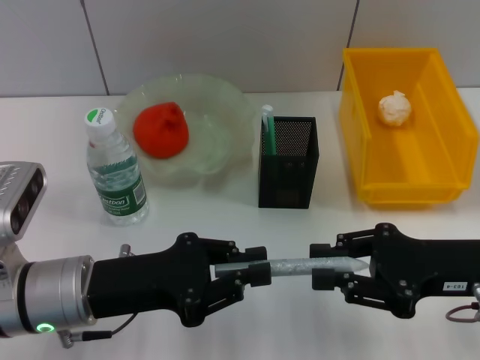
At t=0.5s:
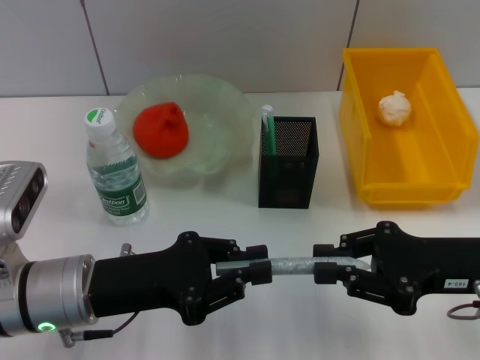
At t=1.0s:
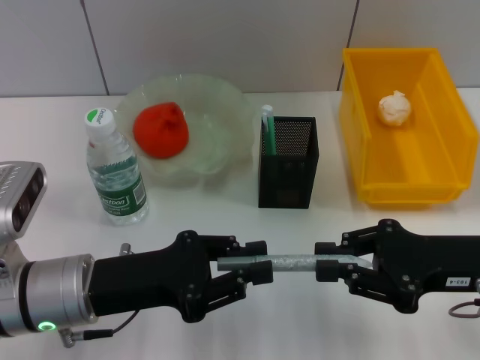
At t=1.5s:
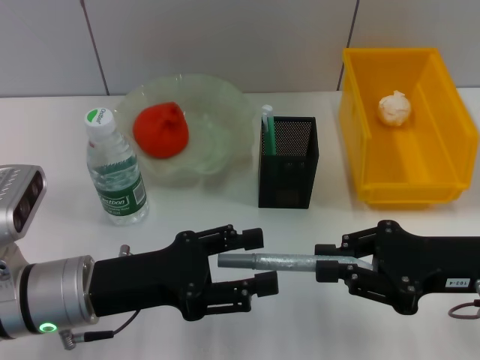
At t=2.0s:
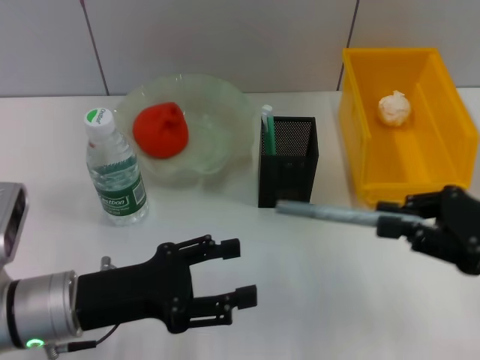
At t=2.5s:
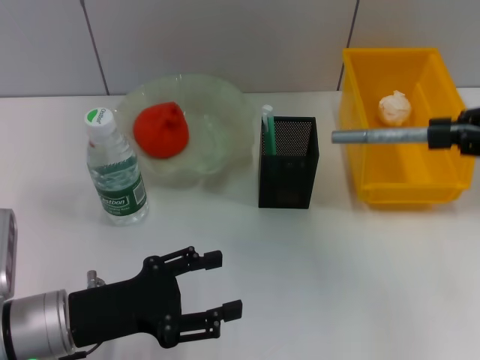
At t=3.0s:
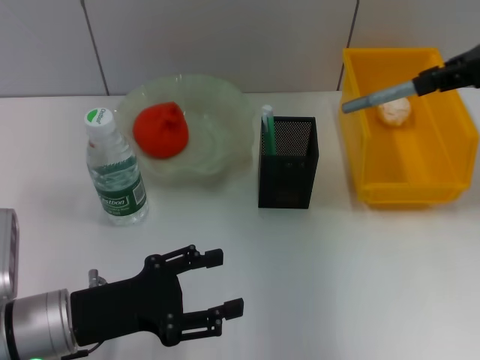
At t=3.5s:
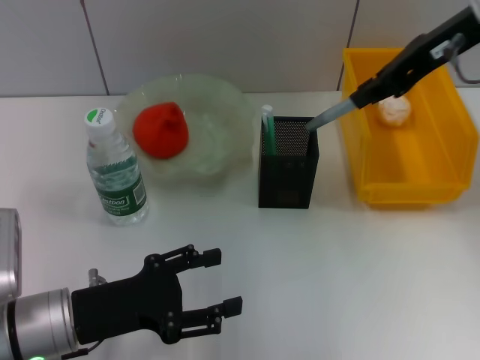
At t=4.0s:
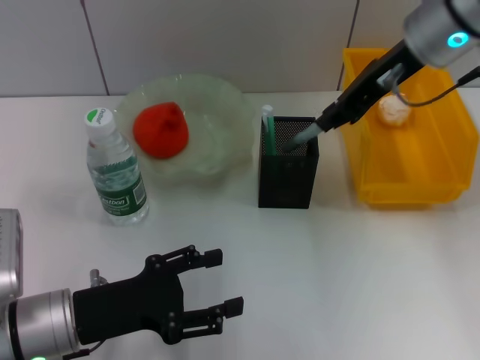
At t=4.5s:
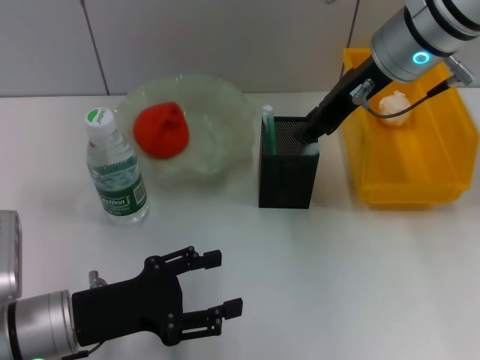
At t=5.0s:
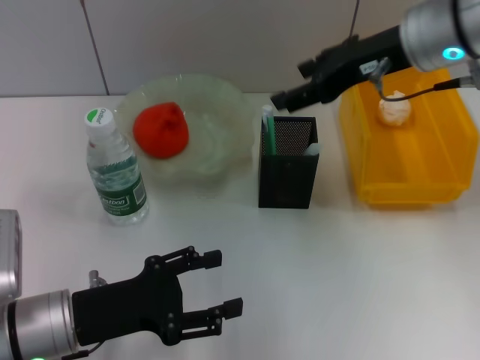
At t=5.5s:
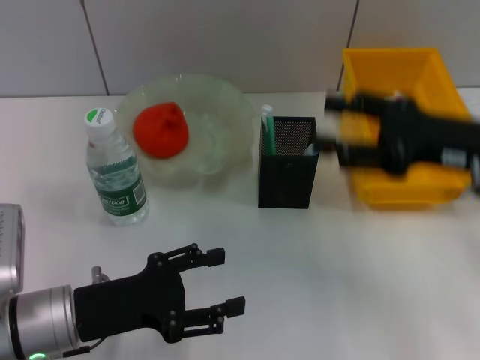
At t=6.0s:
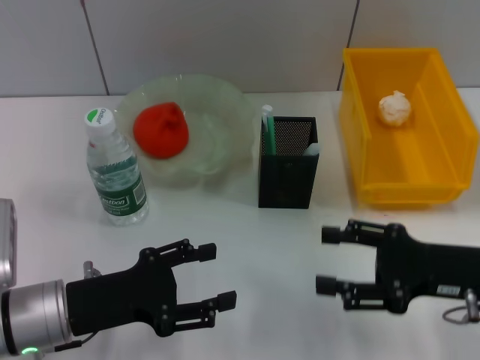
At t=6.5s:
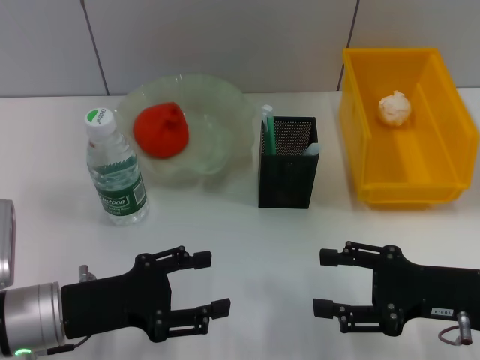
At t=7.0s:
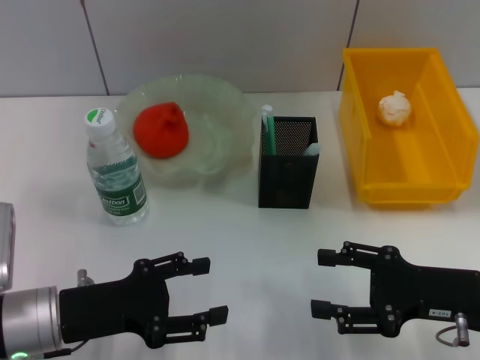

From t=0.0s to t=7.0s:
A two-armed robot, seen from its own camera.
Step, from t=2.0s to t=4.5s: Place the gray glue into the pen holder with the right hand.
From t=0.0s to t=2.0s: The left gripper opens its fingers. Meanwhile the right gripper heads to the right, covering approximately 5 cm.
From t=2.0s to t=3.5s: The right gripper heads upward, forward and to the left, covering approximately 25 cm.
From t=3.5s to t=5.0s: The right gripper opens up.
From t=5.0s to t=7.0s: The right gripper moves downward, backward and to the right, some 25 cm.

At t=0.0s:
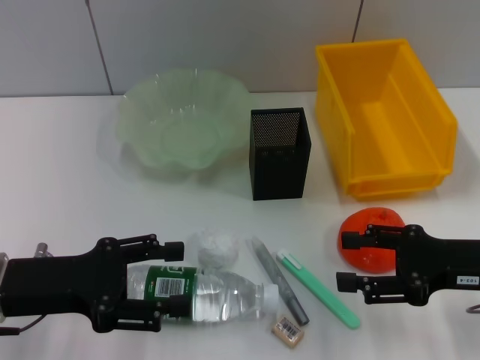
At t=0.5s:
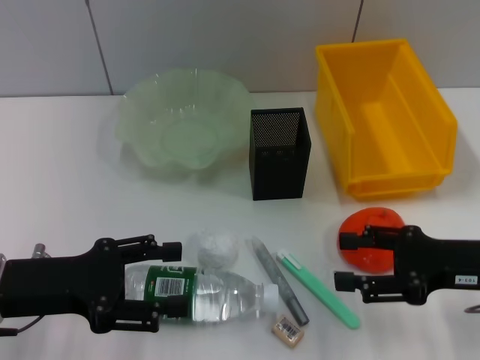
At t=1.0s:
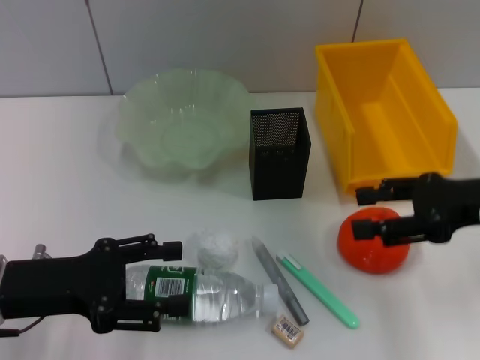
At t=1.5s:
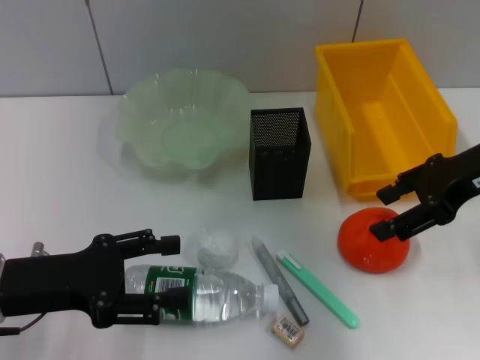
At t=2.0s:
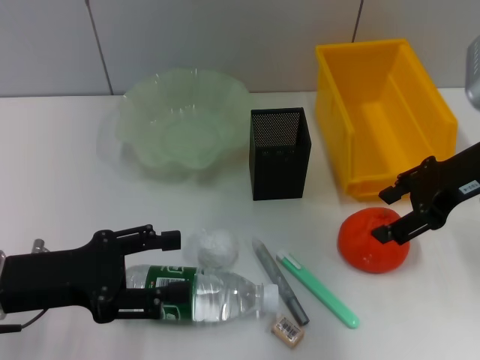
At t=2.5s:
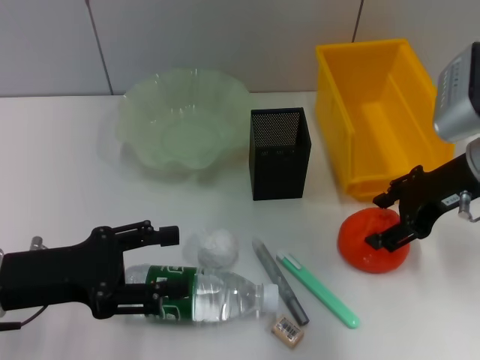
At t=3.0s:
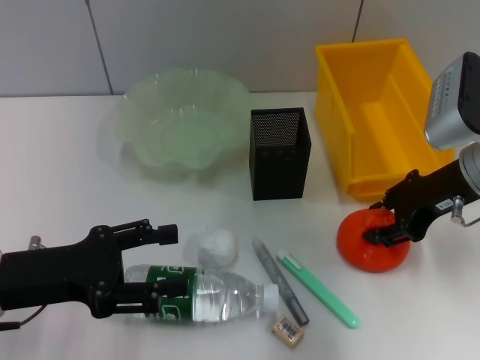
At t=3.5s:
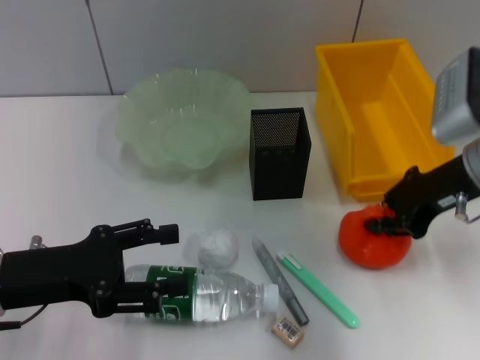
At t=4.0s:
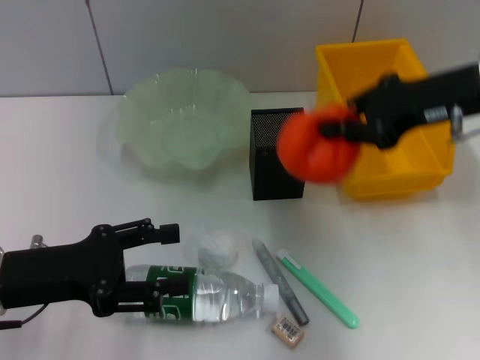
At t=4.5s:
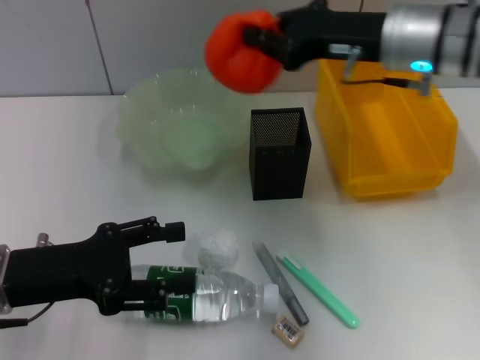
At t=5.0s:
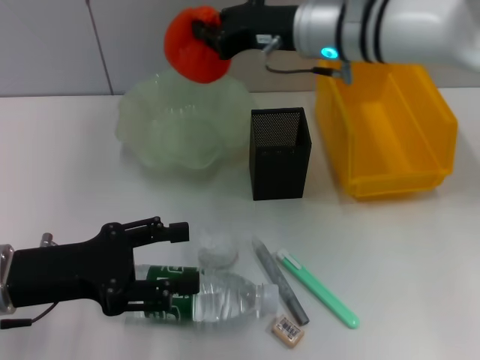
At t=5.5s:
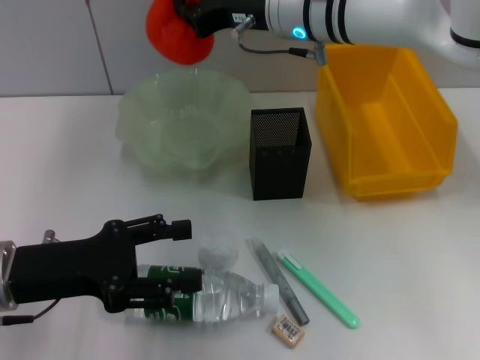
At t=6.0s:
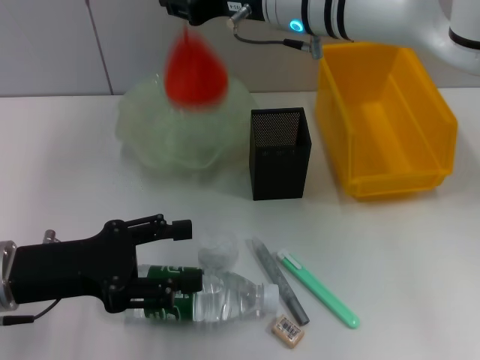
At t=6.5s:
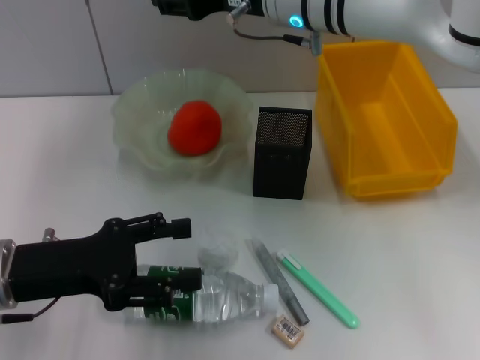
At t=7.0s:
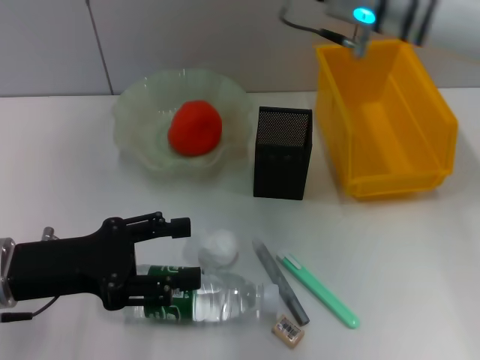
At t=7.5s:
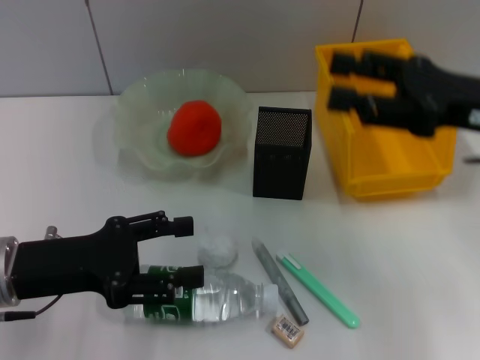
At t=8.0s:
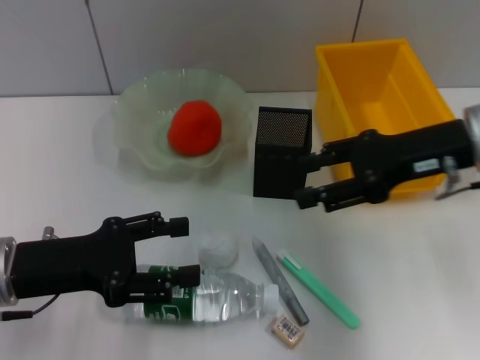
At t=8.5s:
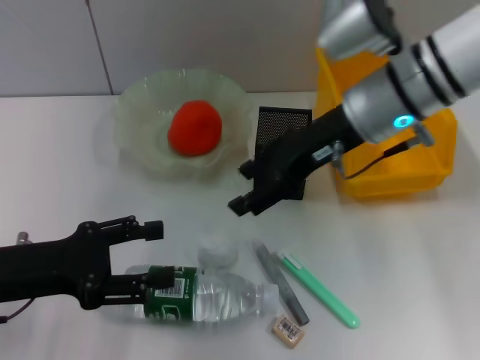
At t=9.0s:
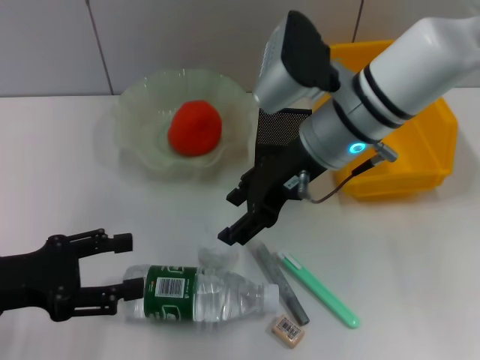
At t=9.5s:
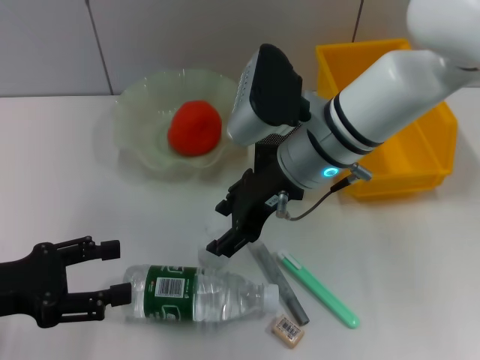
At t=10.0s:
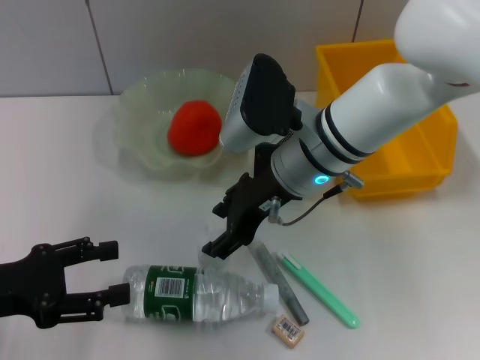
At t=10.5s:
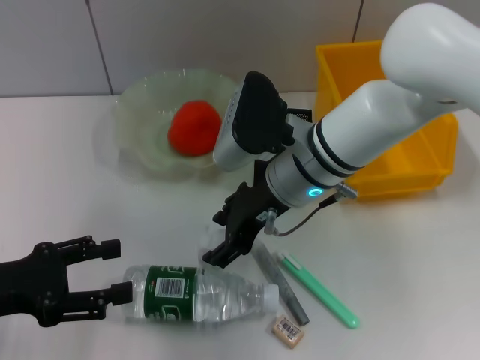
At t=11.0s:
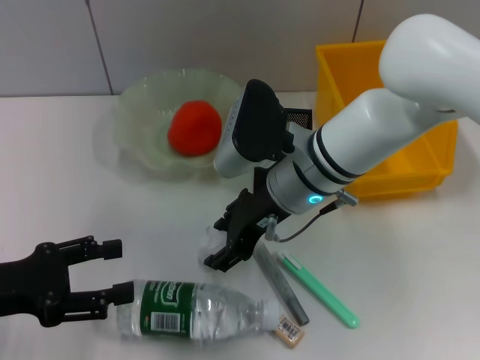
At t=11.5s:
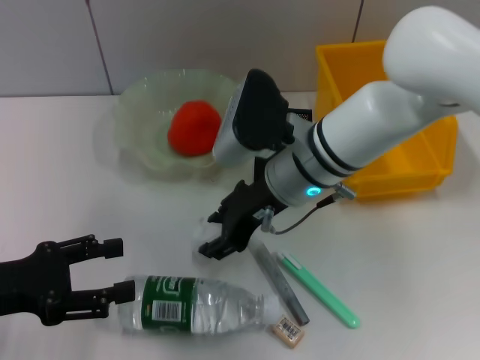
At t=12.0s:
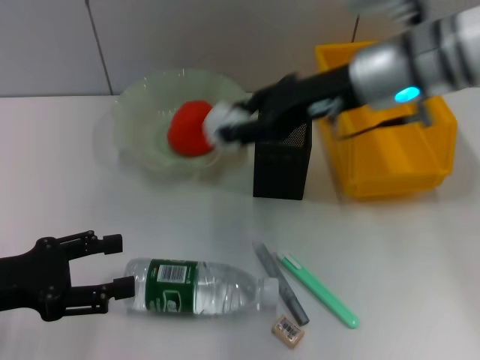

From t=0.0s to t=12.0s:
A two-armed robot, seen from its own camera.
Step, from t=0.0s to t=3.0s: Grab the orange with the right hand.
Step, from t=3.5s to t=6.0s: Place the orange into the fruit bowl with the right hand.
Step, from t=6.5s to t=11.0s: Grab the paper ball with the right hand.
From t=0.0s to t=2.0s: The right gripper moves upward and forward, approximately 15 cm.
From t=2.0s to t=4.0s: The right gripper closes.
From t=4.0s to t=6.0s: The right gripper moves to the left and forward, approximately 20 cm.
From t=6.0s to t=8.0s: The right gripper is displaced to the right and backward by some 20 cm, and opens.
From t=8.0s to t=10.0s: The right gripper travels to the left by approximately 15 cm; the left gripper goes some 5 cm to the left.
From t=10.0s to t=12.0s: The right gripper shifts approximately 10 cm to the right and upward.

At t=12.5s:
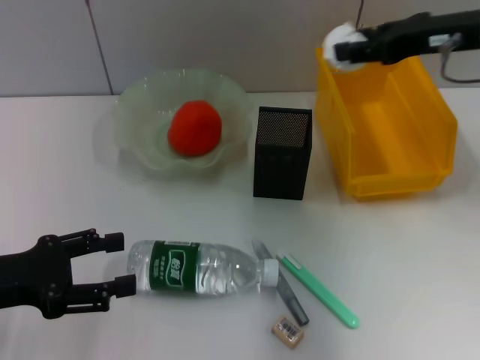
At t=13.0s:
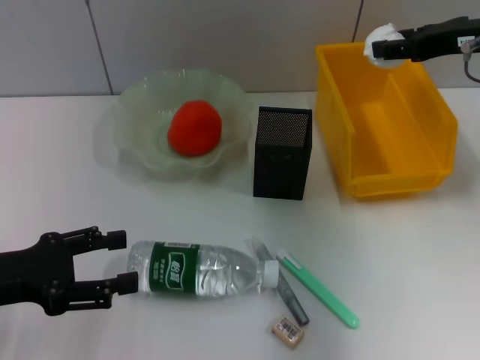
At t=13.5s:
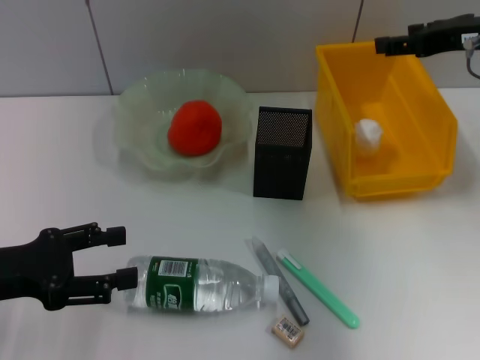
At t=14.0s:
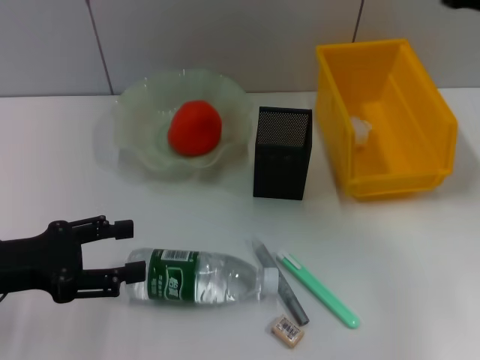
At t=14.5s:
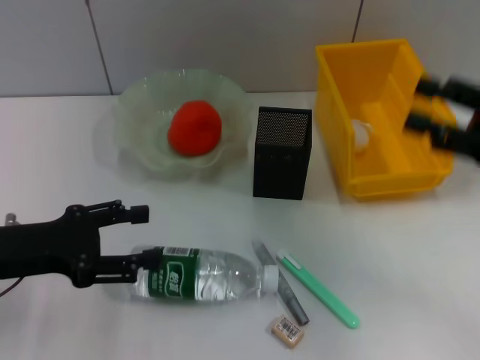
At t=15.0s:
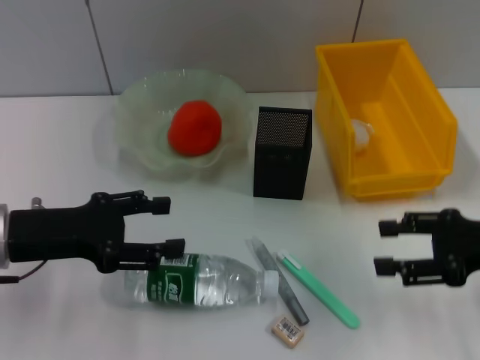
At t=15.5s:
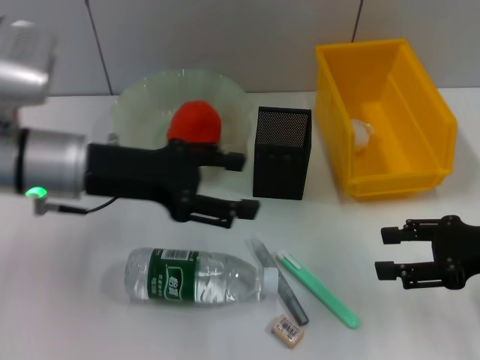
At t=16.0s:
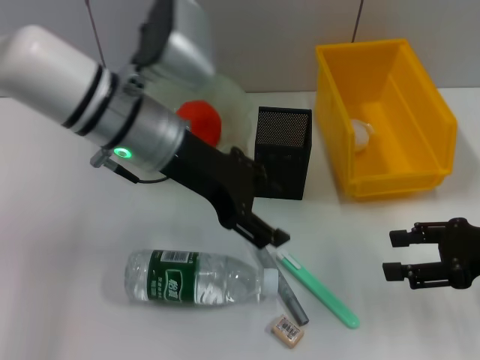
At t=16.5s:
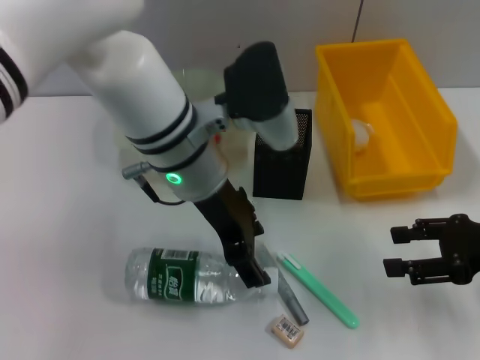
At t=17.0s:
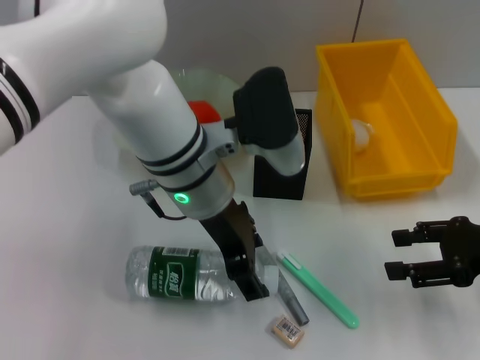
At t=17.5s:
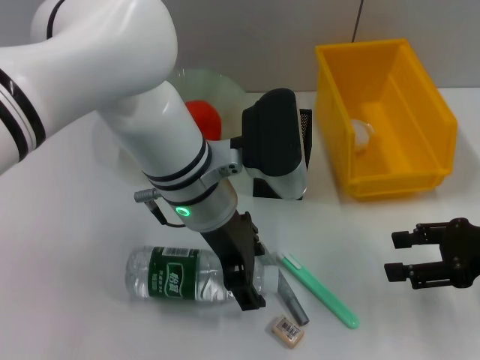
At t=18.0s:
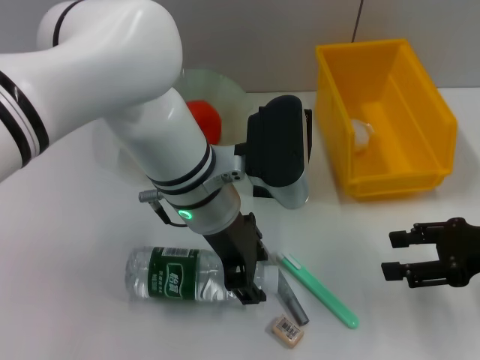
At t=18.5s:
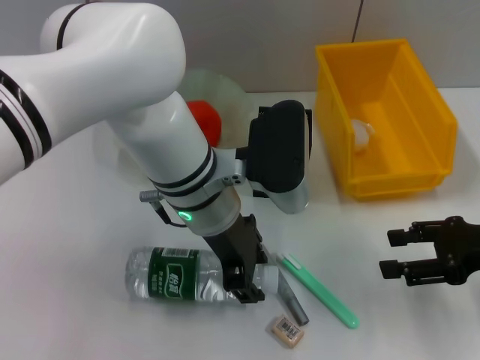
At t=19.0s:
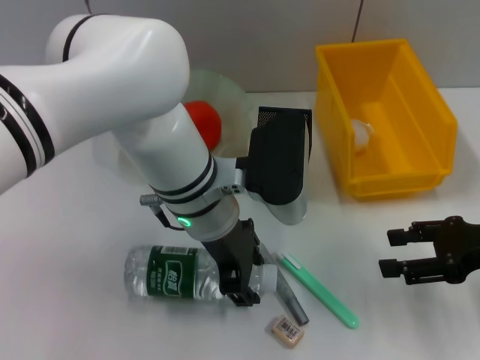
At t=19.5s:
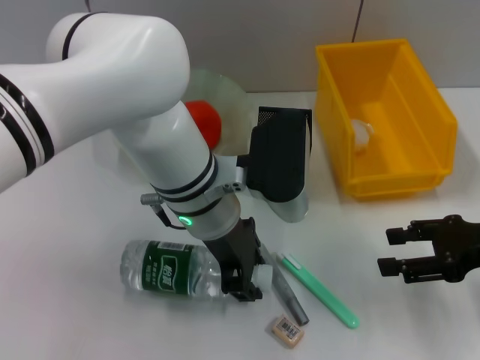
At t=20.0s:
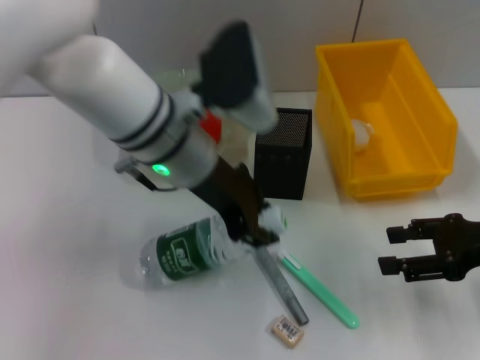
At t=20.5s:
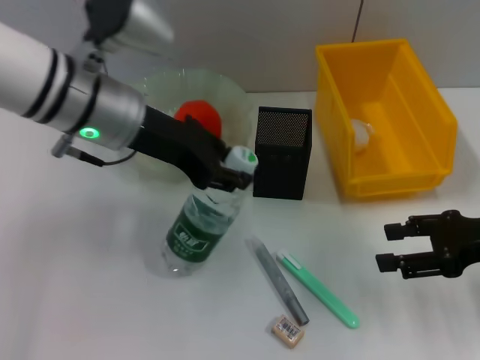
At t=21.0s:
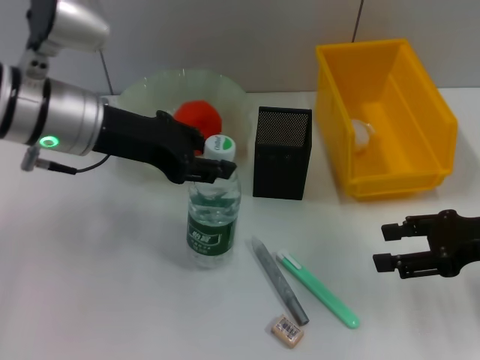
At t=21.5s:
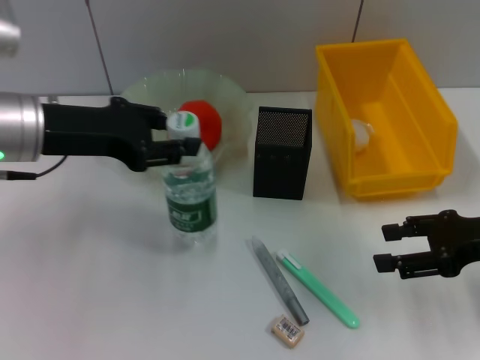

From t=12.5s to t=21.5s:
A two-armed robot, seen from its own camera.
Step, from t=14.0s to t=19.0s: Grab the water bottle with the left hand.
From t=12.5s to t=14.5s: The right gripper heads backward, downward and to the right, covering approximately 15 cm.
From t=14.5s to t=17.0s: The left gripper goes about 25 cm to the right.
From t=17.0s to t=19.5s: The left gripper closes its fingers.
From t=19.5s to t=21.5s: The left gripper is displaced to the left by roughly 15 cm.
